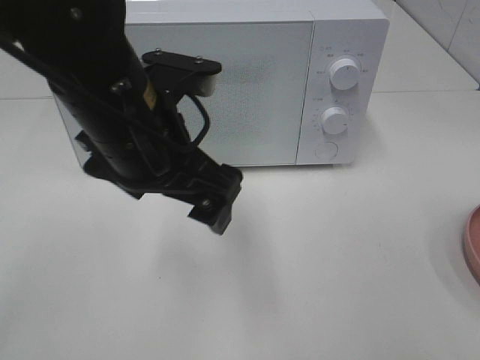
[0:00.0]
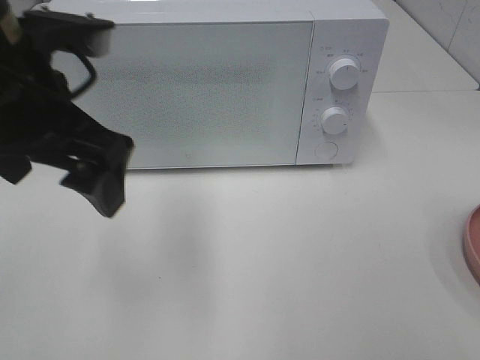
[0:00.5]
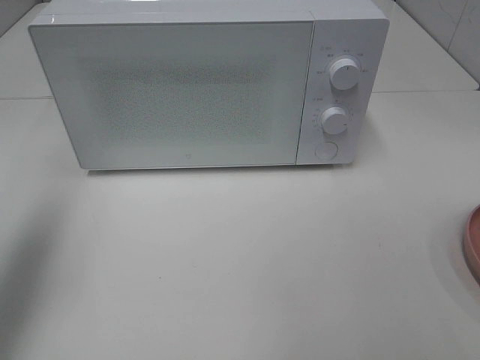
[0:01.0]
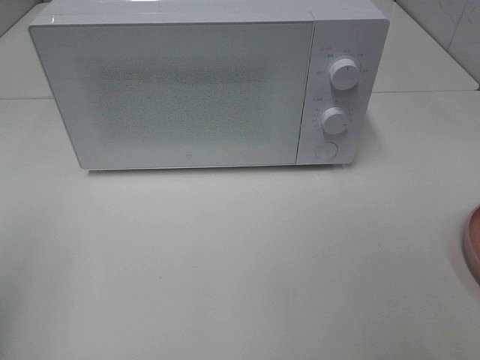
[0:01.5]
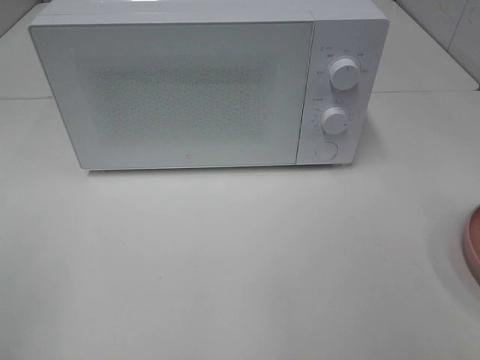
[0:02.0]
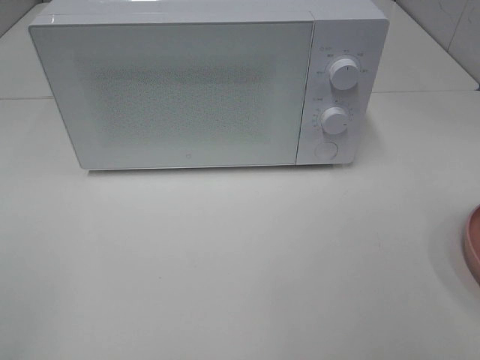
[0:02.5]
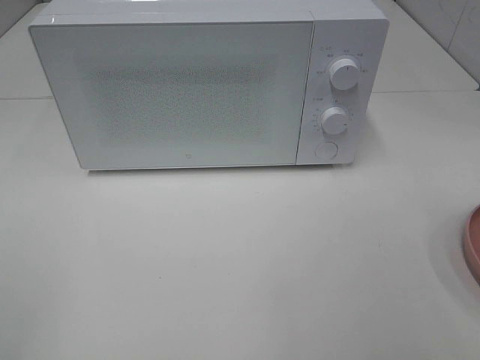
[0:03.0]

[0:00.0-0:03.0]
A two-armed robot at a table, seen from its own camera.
Task of the whole recording: Heat the burger.
0:00.0 to 0:01.5: The left gripper moves to the left and backward, about 30 cm.
